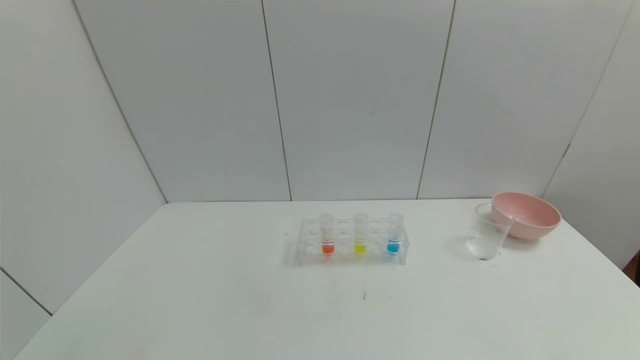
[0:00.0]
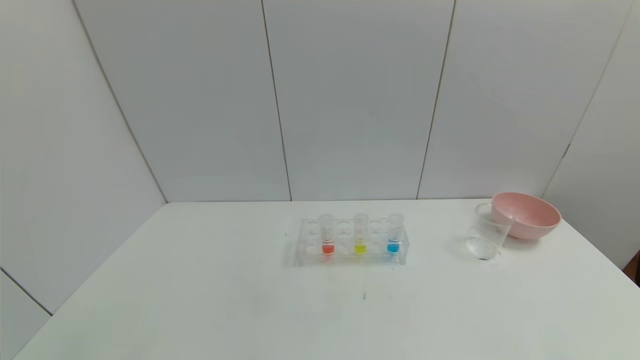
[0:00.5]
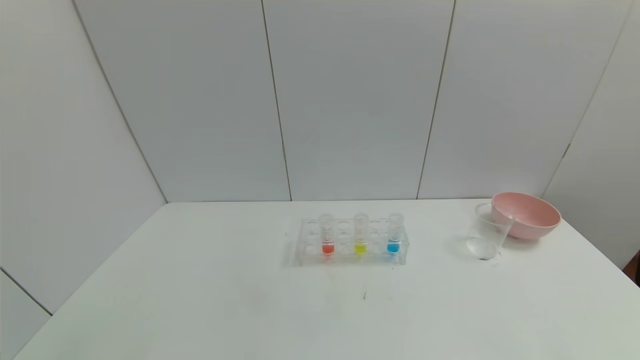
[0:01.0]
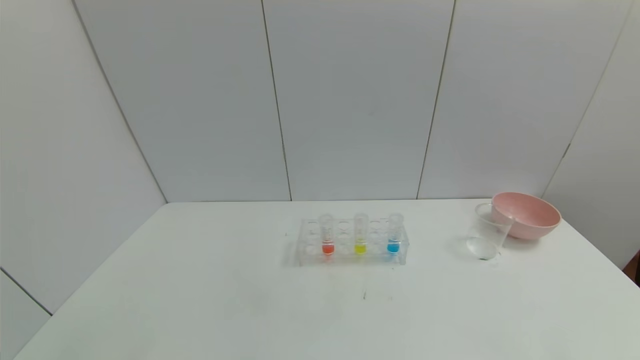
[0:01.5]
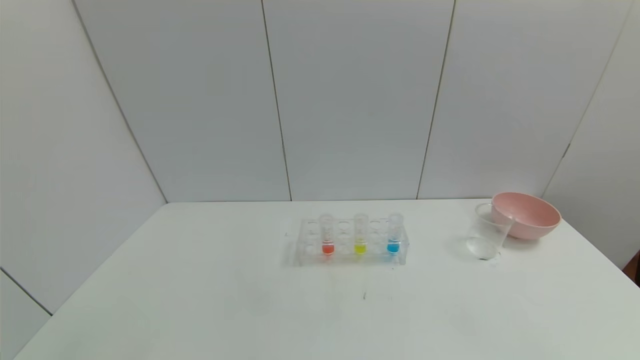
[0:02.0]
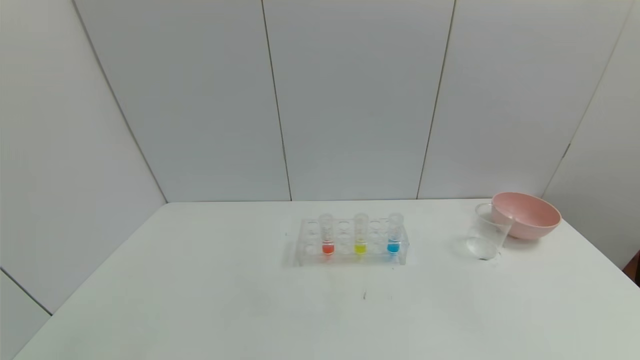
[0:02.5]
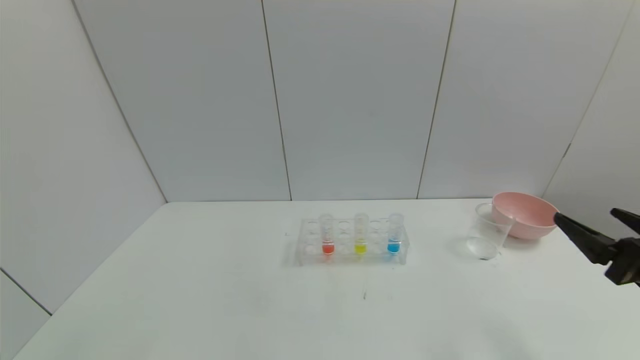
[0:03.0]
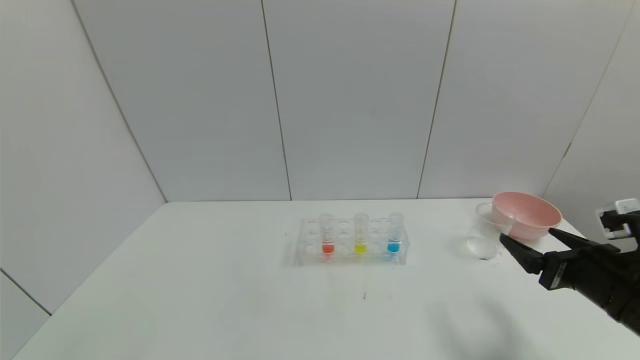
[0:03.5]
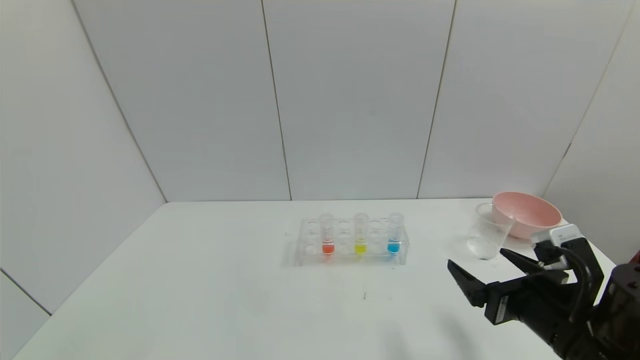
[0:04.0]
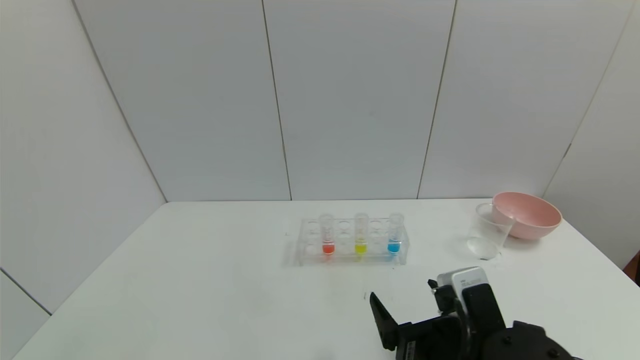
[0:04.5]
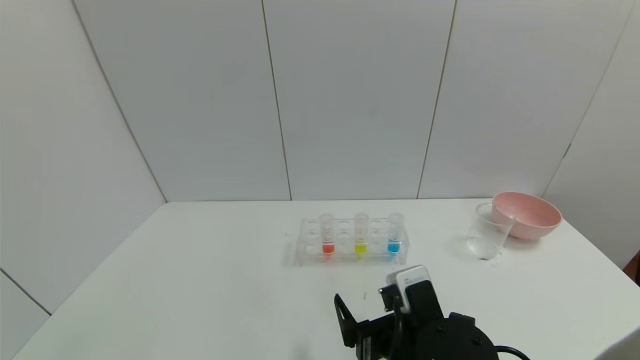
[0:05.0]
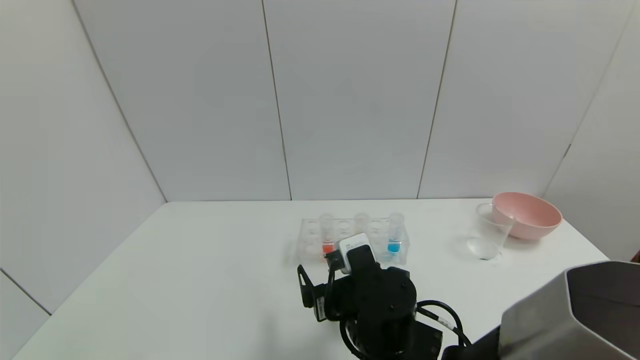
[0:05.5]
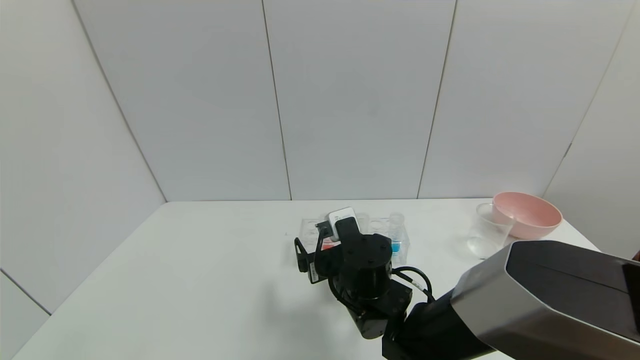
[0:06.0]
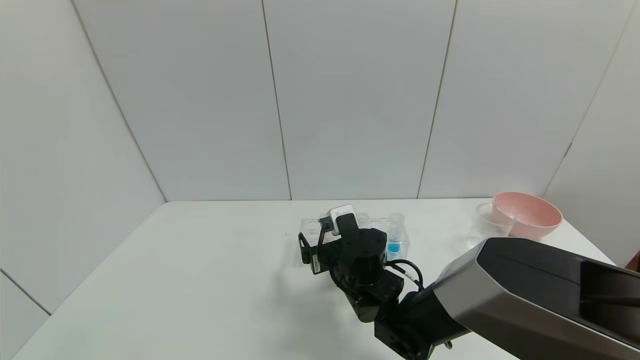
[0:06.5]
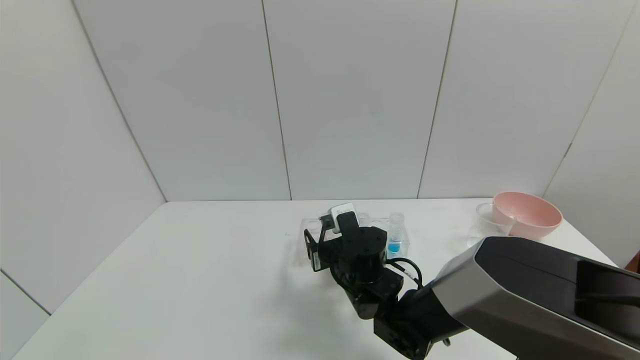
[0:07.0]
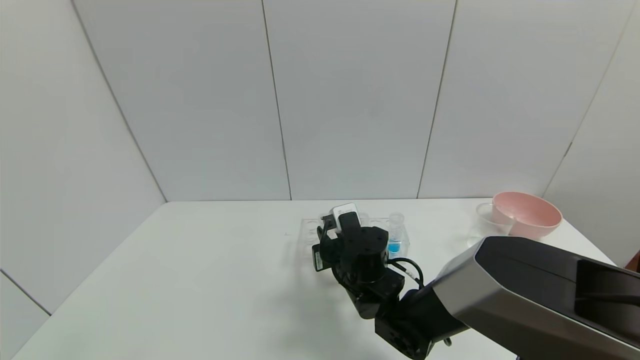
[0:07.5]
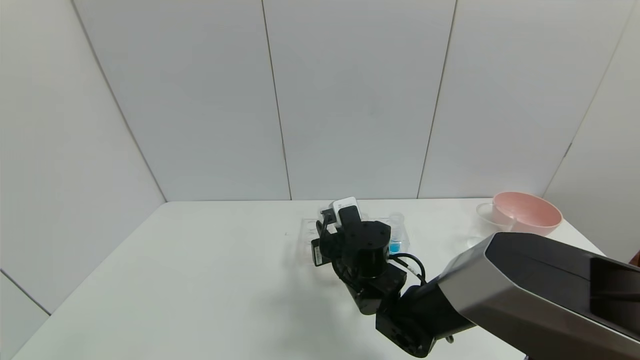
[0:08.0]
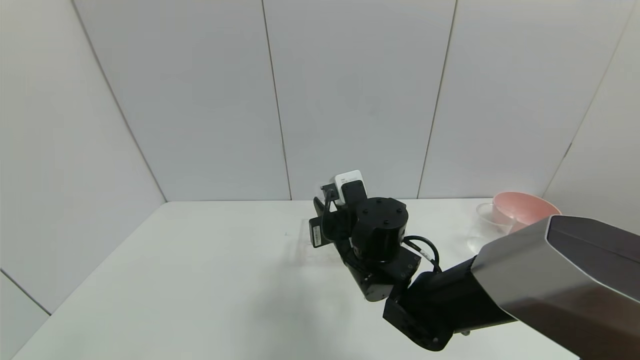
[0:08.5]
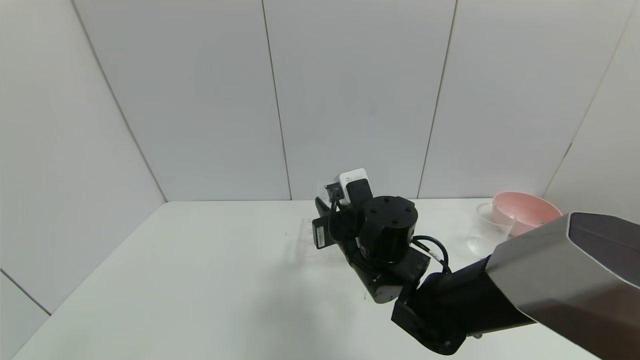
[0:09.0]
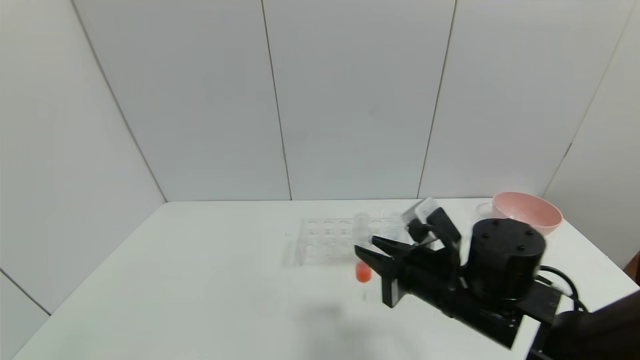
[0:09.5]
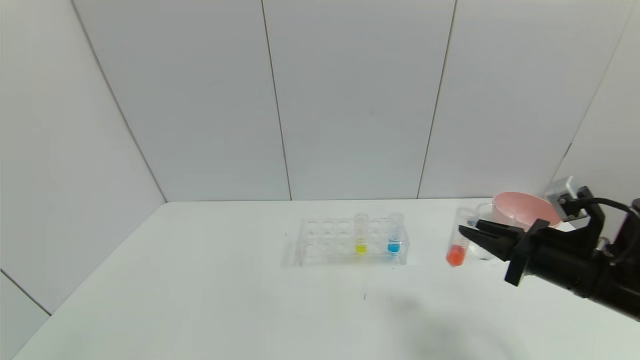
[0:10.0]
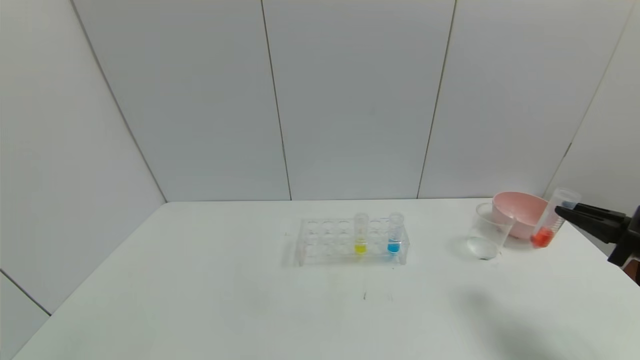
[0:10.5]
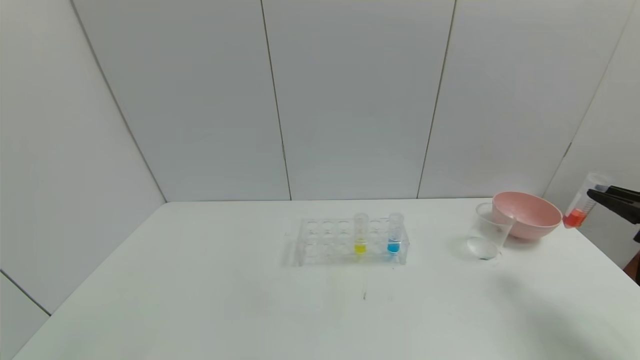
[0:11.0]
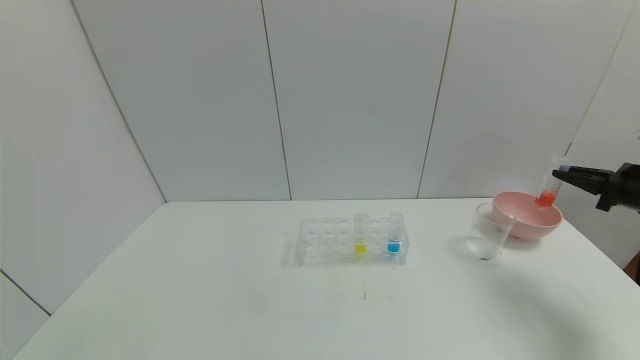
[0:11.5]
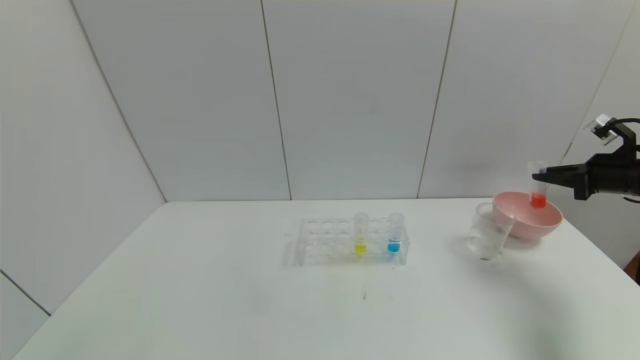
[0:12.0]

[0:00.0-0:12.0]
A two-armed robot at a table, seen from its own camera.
Task of the whole recording: pick up the test tube with red pigment and the test tube with blue pigment by grippers and pour them into the container.
Step, 0:00.0 to 0:11.5: Pick up the test tube containing the red reagent with right gripper.
0:02.0 to 0:04.0: The right gripper moves forward and to the left, about 25 cm.
0:04.0 to 0:06.0: The right gripper goes roughly 25 cm to the left and forward.
0:06.0 to 0:08.0: The right gripper closes its fingers.
0:08.0 to 0:10.0: The right gripper shifts approximately 30 cm to the right.
0:10.0 to 0:12.0: The right gripper shifts approximately 20 cm to the right and forward.

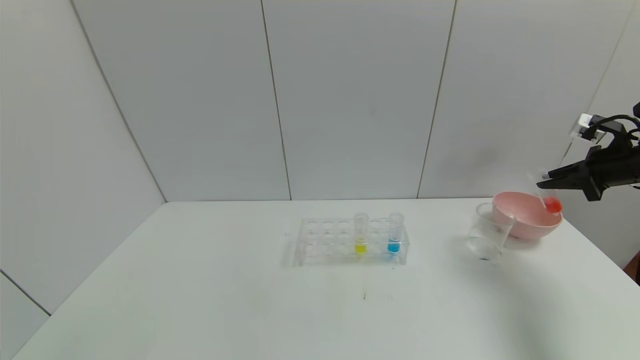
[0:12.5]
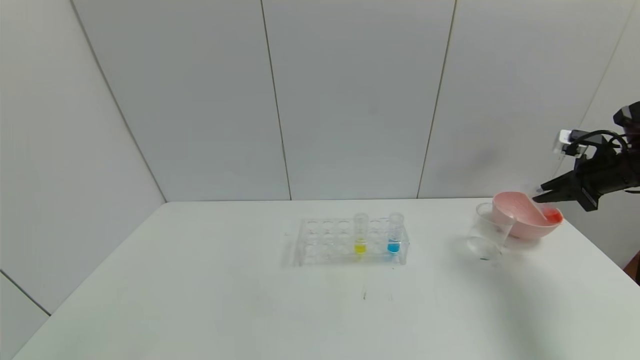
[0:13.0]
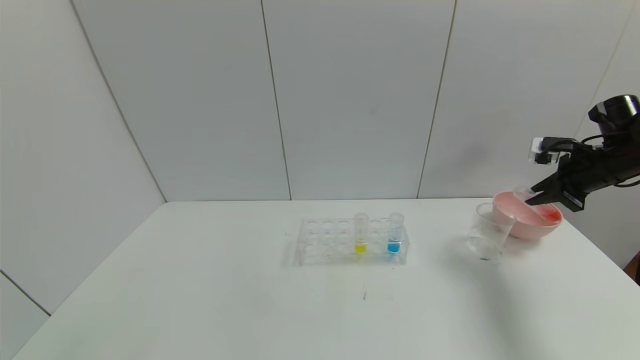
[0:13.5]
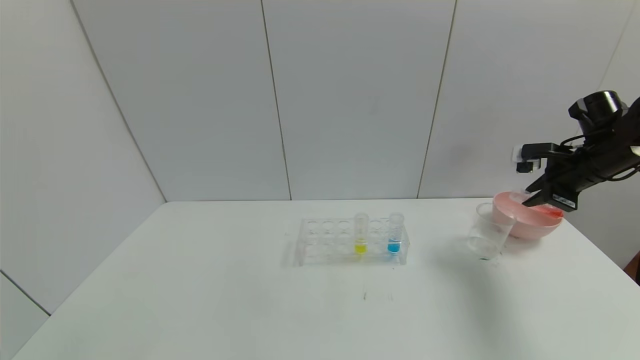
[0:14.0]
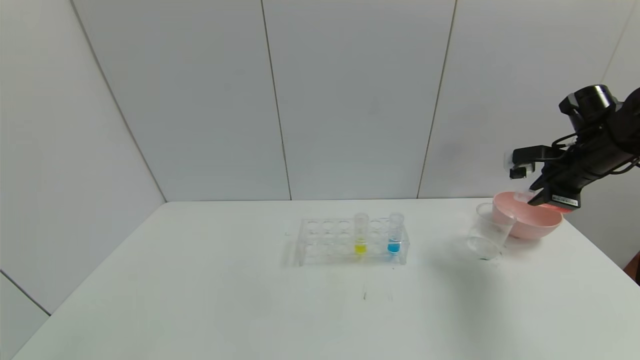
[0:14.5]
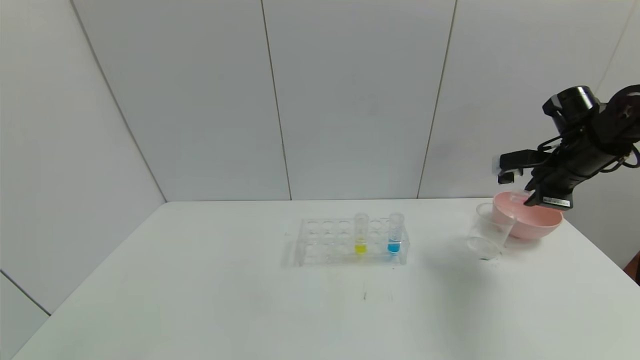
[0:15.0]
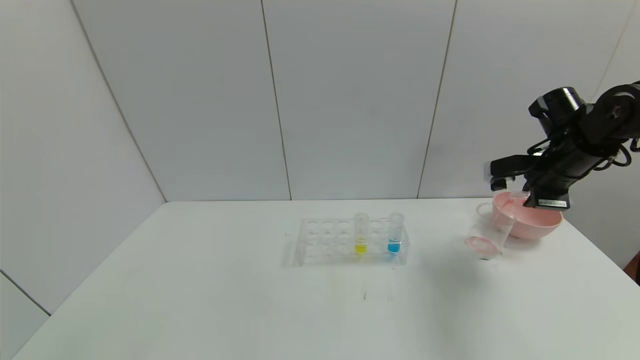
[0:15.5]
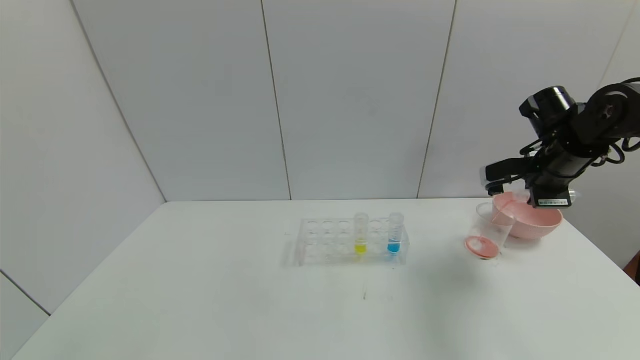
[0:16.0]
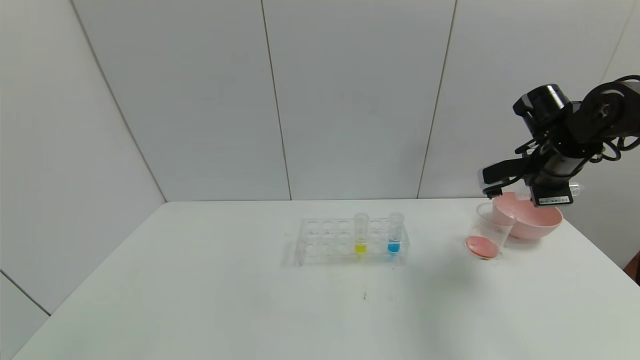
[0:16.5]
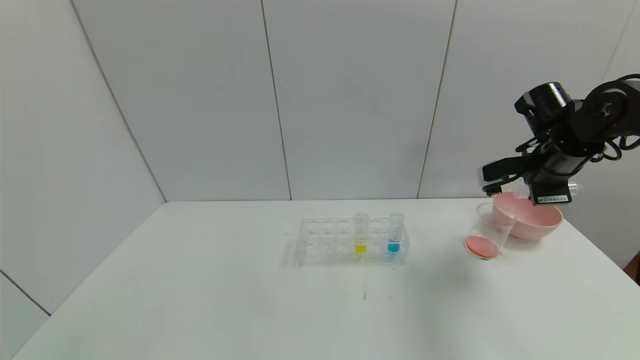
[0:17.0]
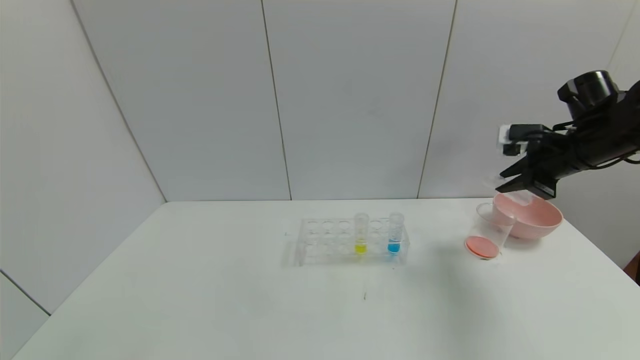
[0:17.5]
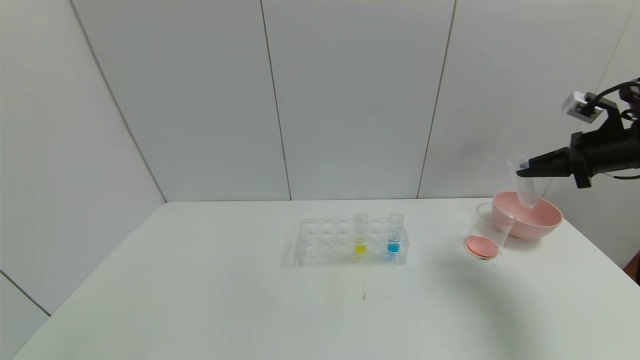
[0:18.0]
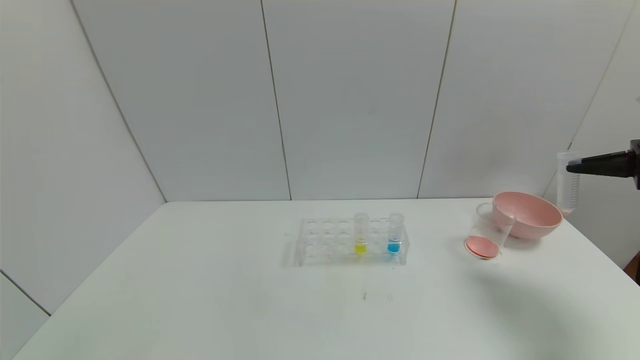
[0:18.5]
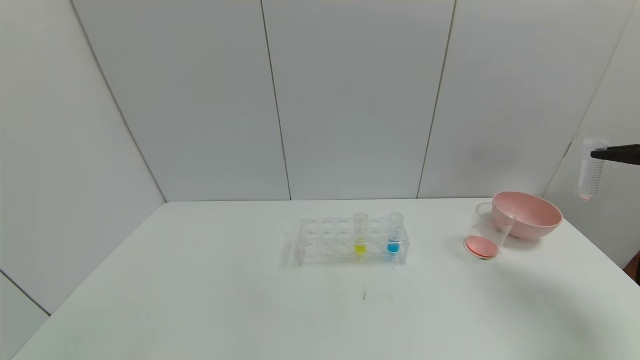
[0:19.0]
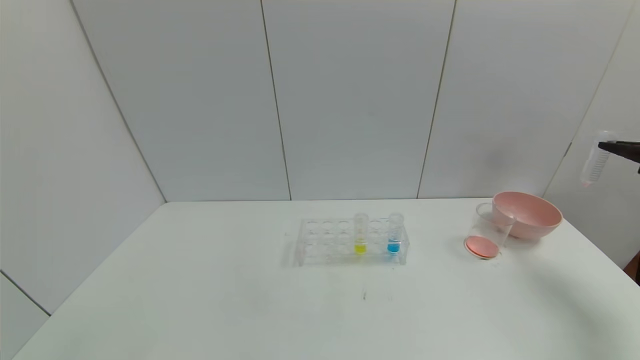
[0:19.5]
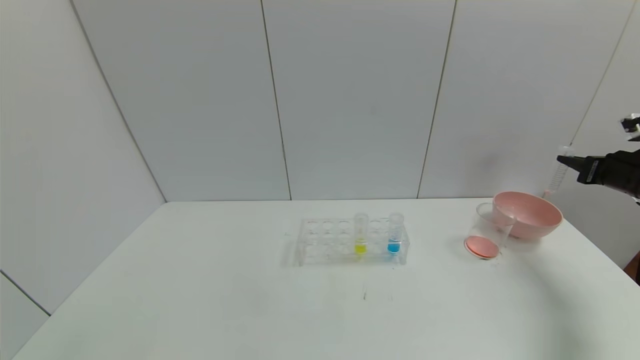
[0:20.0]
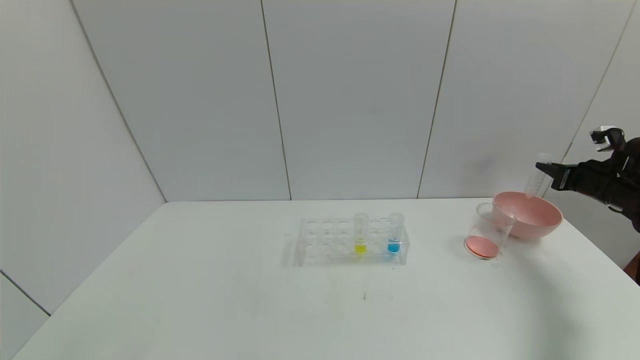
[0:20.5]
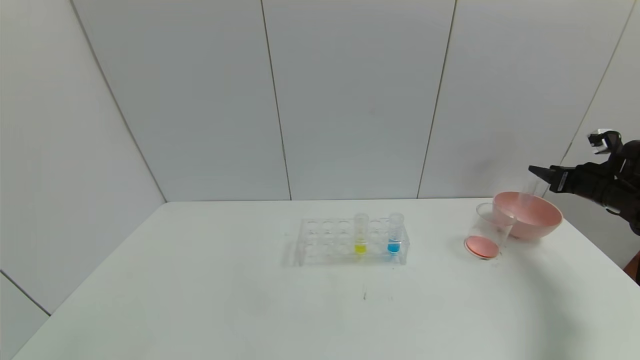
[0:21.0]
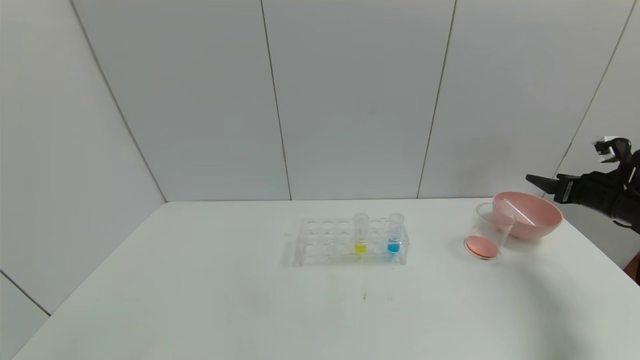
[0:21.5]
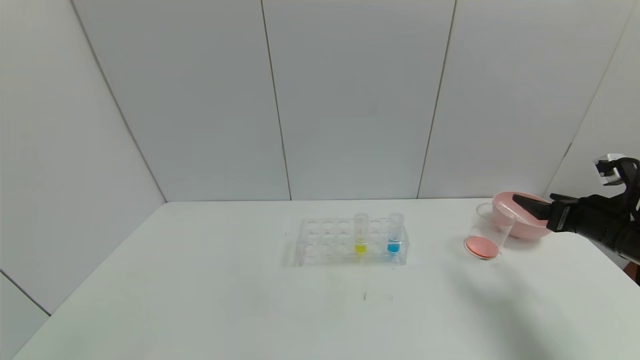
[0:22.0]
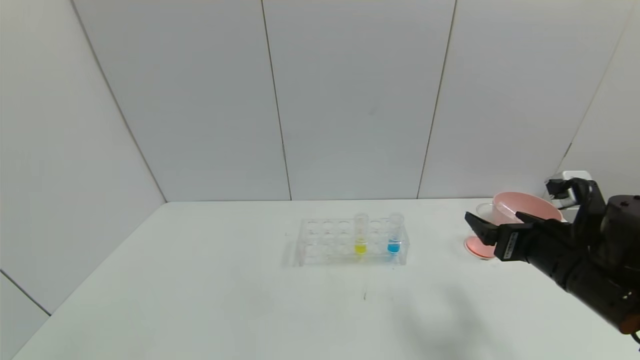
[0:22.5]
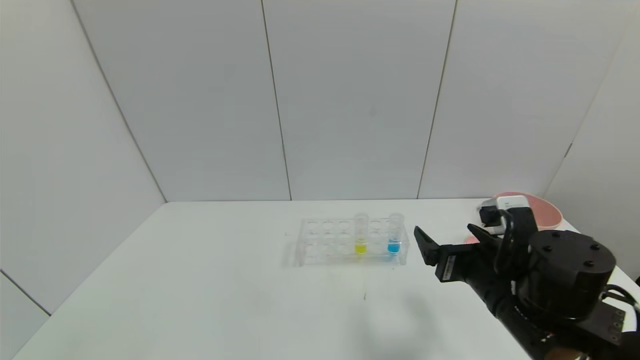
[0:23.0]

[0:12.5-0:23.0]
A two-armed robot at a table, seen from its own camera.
Task of the whole recording: pick up the test tube with red pigment and the test tube with blue pigment by grippers and pour them into the container.
Step, 0:12.5 to 0:17.0: Pour the red reagent into the graduated cylinder with right gripper.
Step, 0:17.5 to 0:21.5: Place the test tube into the bowl with right gripper.
0:12.5 to 0:14.5: The right gripper is displaced to the left by roughly 10 cm.
0:14.5 to 0:16.5: The right gripper shifts about 5 cm to the left.
0:16.5 to 0:19.0: The right gripper shifts roughly 20 cm to the right.
0:19.0 to 0:21.0: The right gripper goes about 15 cm downward and forward, and opens.
0:21.0 to 0:23.0: The right gripper shifts roughly 35 cm to the left and backward, and opens.
